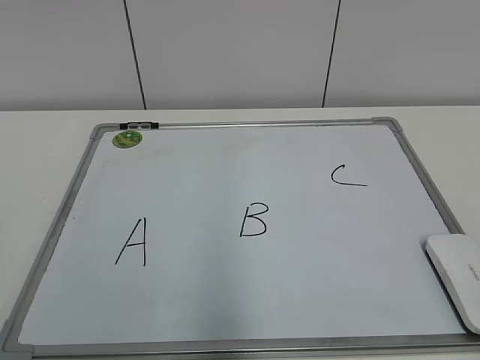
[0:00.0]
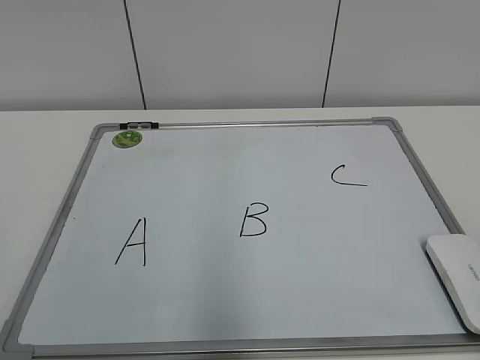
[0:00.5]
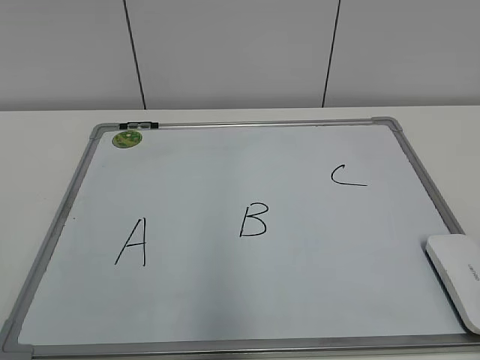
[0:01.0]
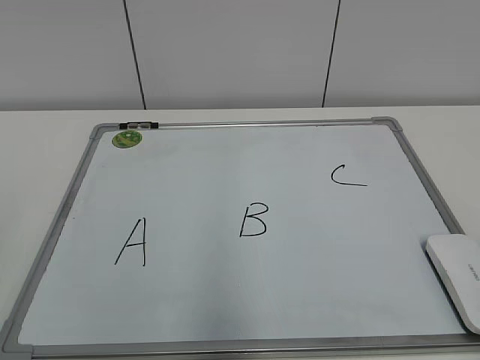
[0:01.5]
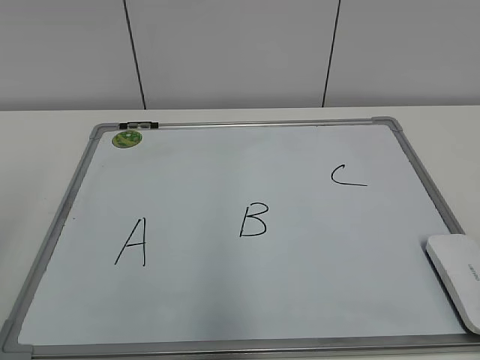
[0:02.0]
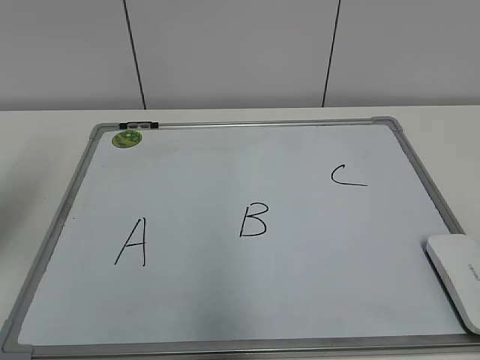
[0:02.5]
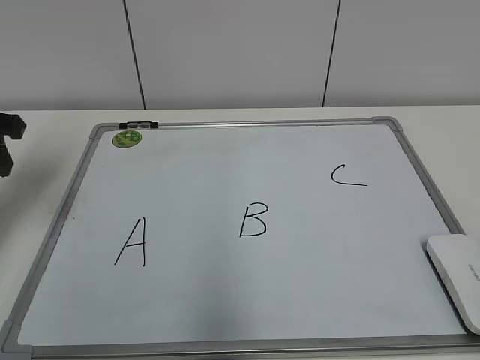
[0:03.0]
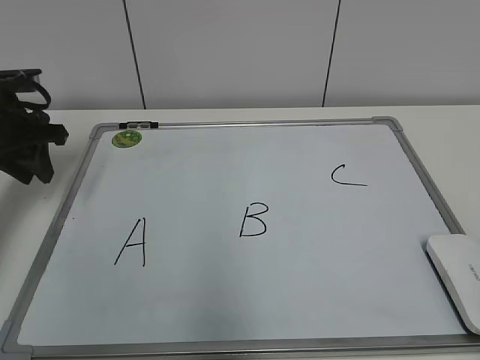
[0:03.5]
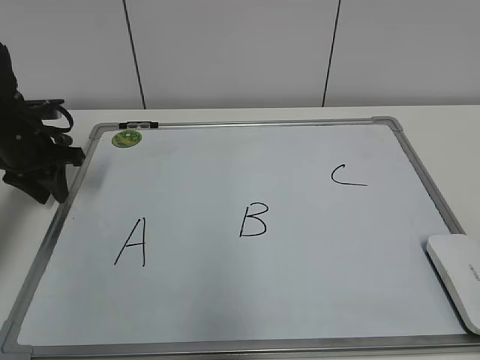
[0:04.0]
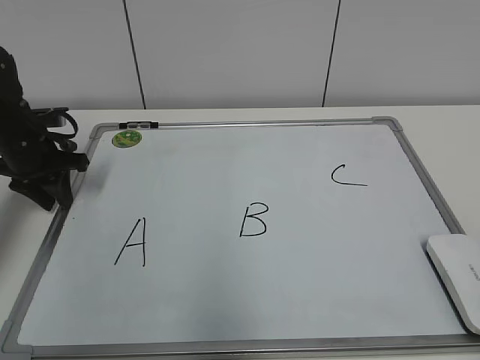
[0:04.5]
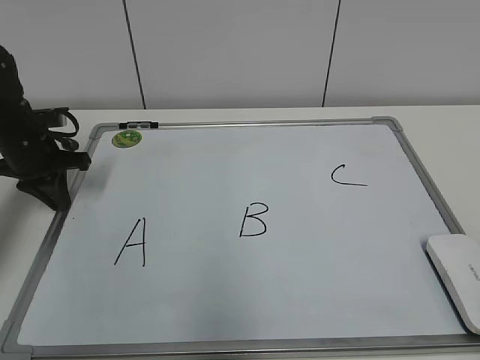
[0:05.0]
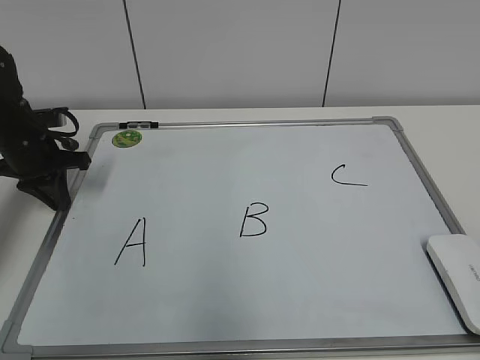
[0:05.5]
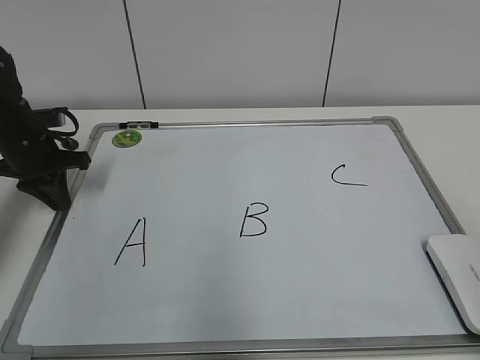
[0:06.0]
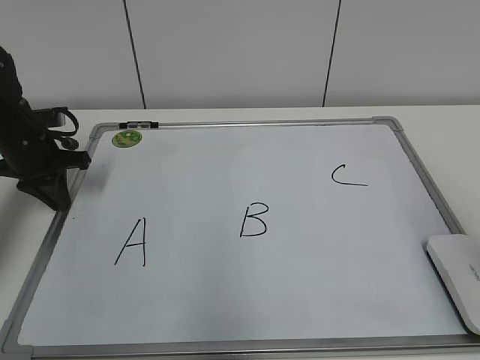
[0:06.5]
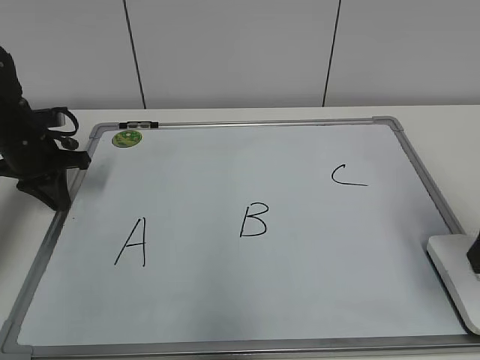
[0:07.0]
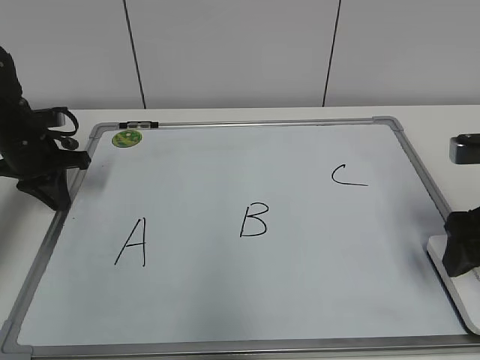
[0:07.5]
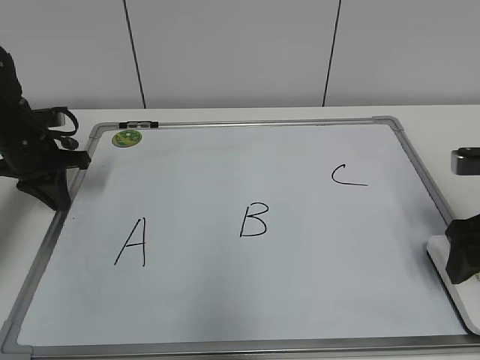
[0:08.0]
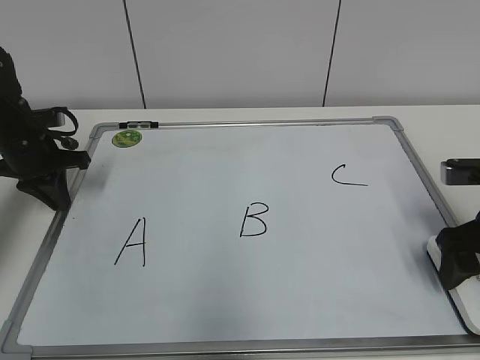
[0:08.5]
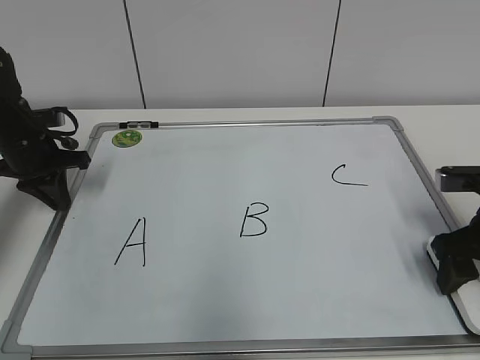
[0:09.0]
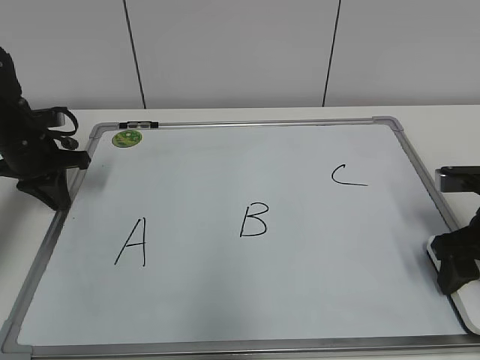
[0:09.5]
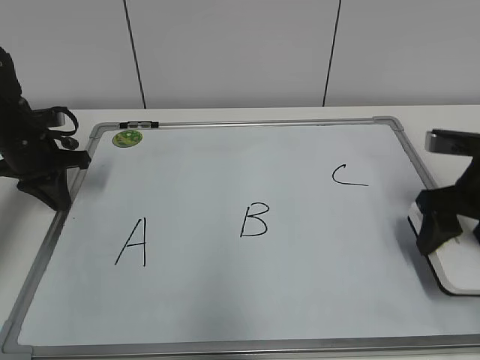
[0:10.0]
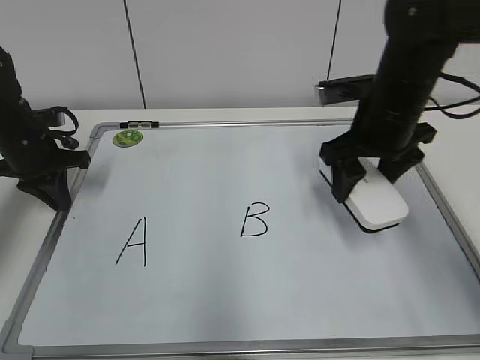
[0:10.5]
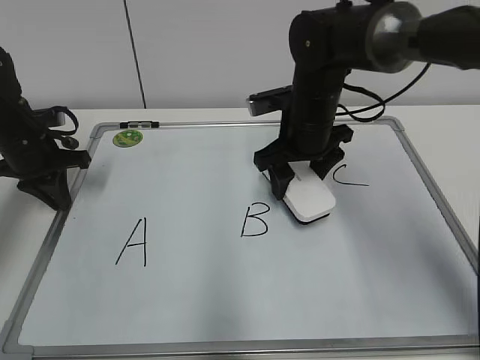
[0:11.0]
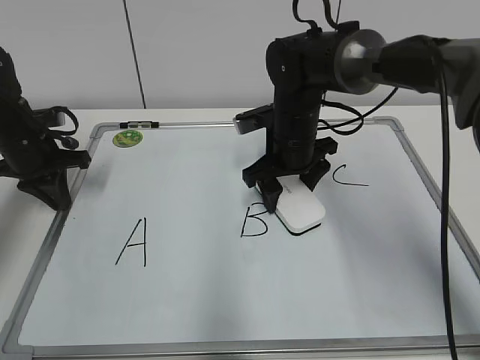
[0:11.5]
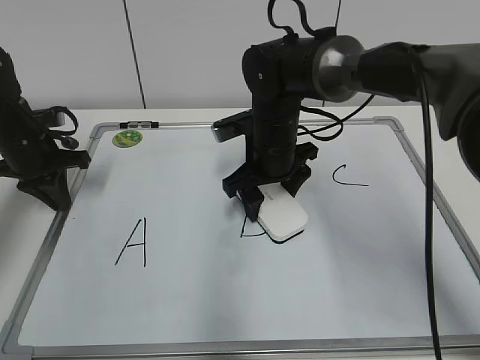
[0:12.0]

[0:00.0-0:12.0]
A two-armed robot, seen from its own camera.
Task of the whole recording: pick up the eraser on the blackboard and erase the letter "B".
Step, 0:00.0 to 0:04.5: Hold the drawing board steady with your left hand.
Step, 0:05.0 to 0:09.5: Grab the eraser with your right hand.
0:02.0 to 0:04.0: The left gripper is displaced forward and downward by some 35 cm.
0:04.0 to 0:06.0: The left gripper closes its fingers.
0:06.0 to 0:08.0: The right gripper heads forward and downward, covering about 25 cm, and opens up.
0:08.0 to 0:10.0: The right gripper closes up.
0:10.0 to 0:12.0: The right gripper moves to the left and forward, roughly 25 cm.

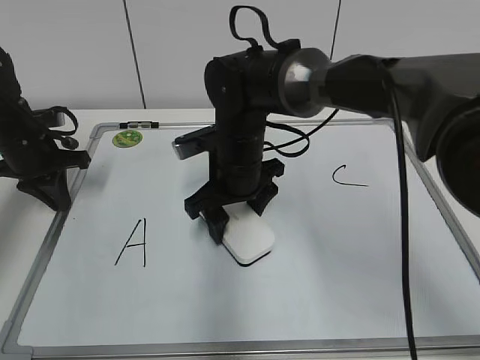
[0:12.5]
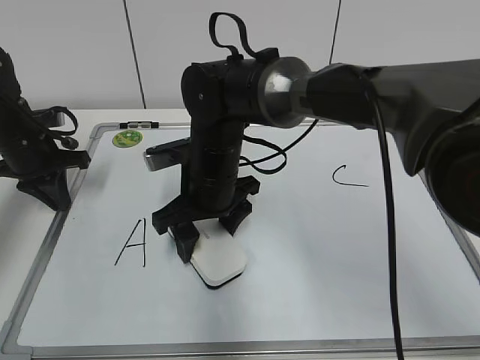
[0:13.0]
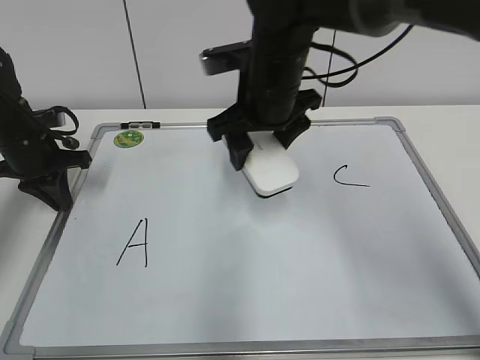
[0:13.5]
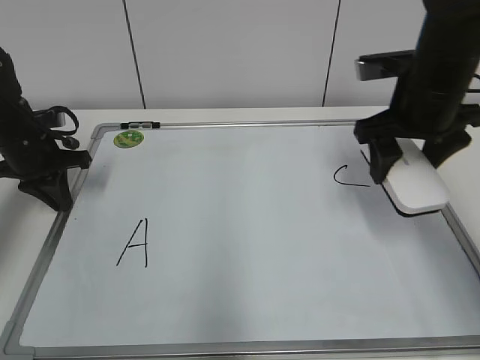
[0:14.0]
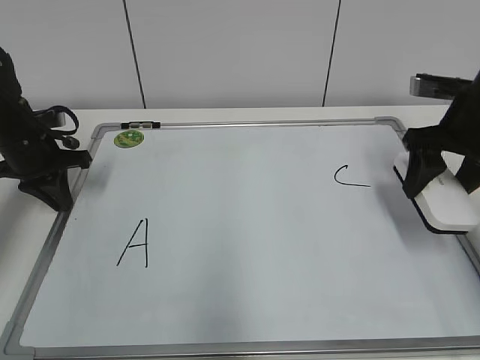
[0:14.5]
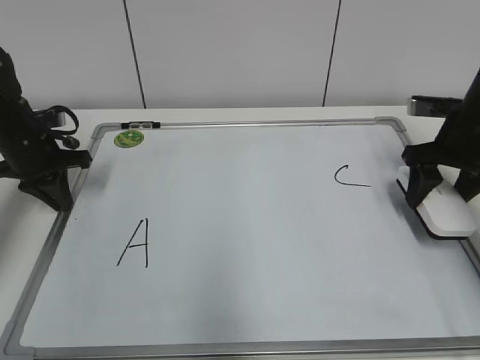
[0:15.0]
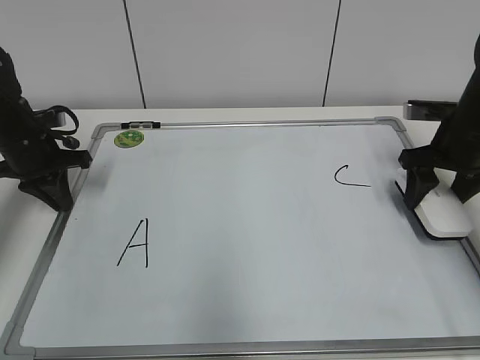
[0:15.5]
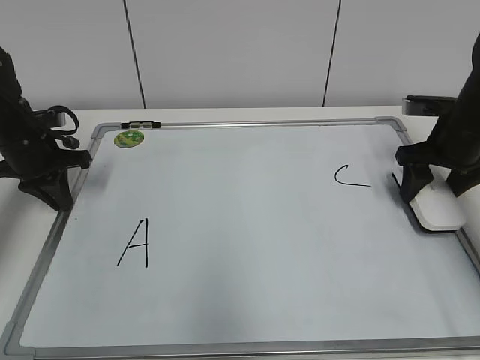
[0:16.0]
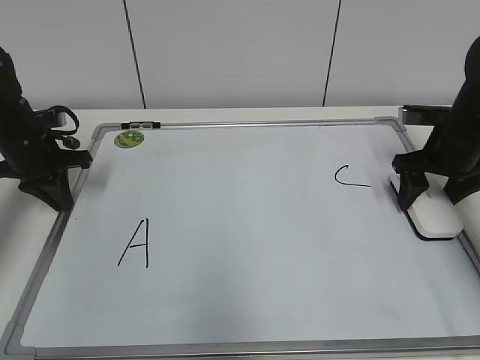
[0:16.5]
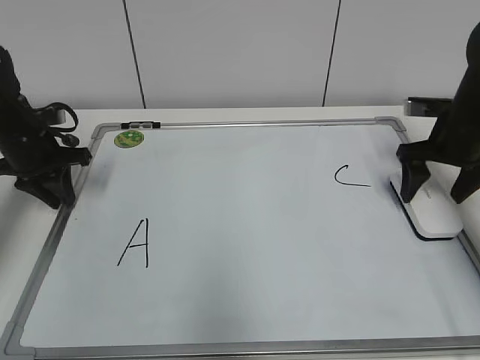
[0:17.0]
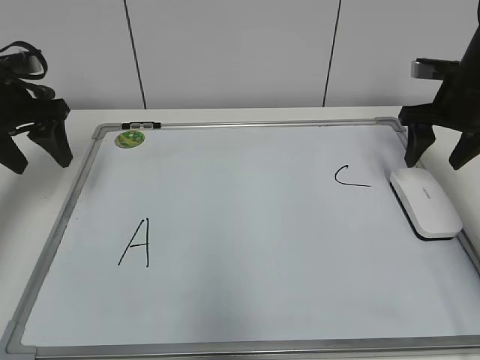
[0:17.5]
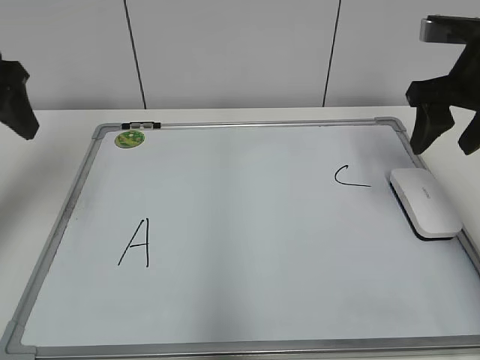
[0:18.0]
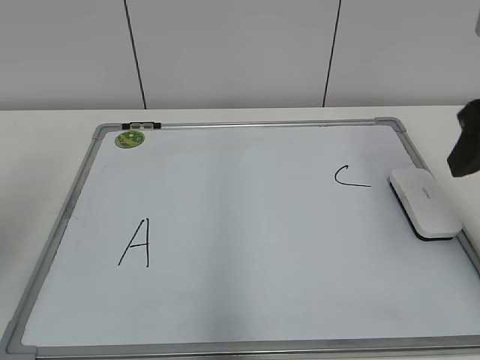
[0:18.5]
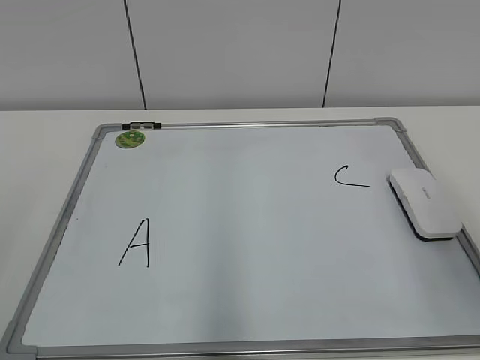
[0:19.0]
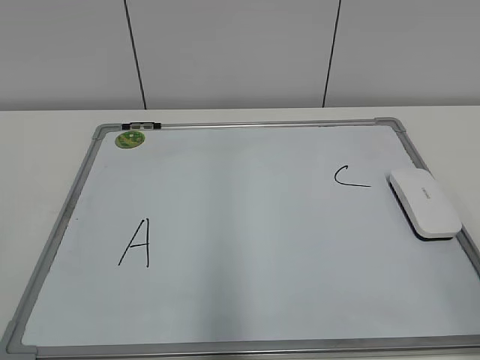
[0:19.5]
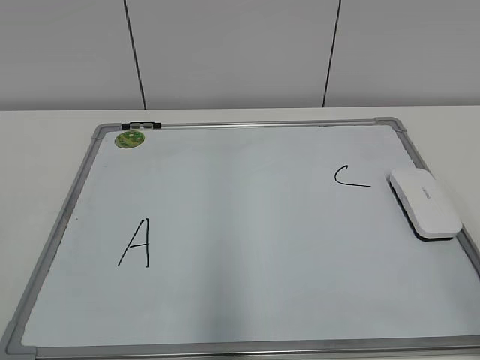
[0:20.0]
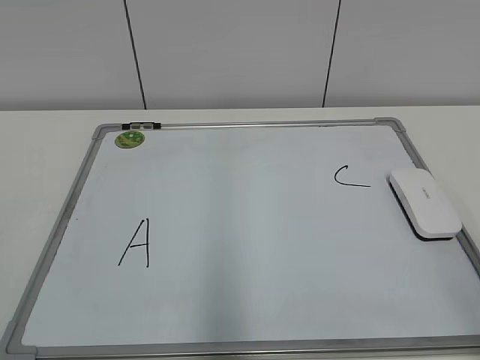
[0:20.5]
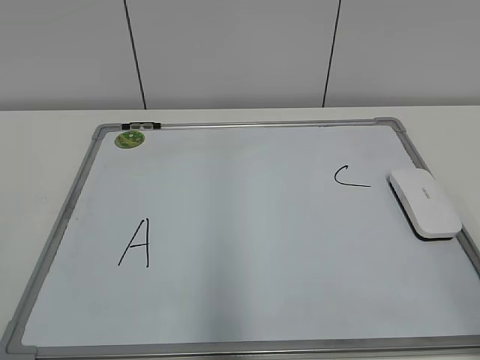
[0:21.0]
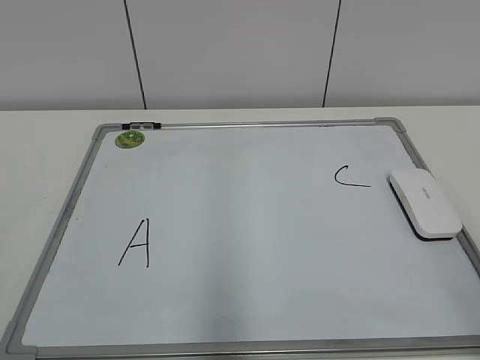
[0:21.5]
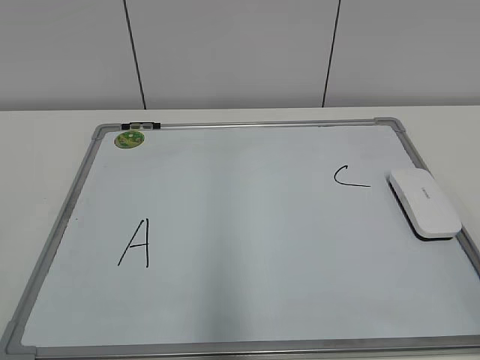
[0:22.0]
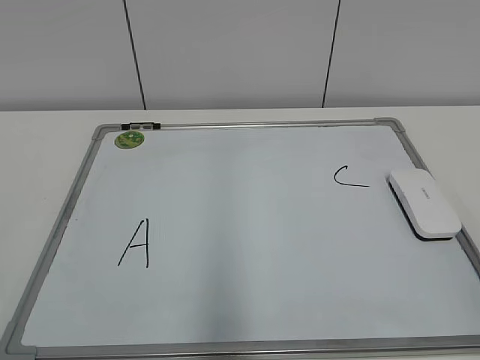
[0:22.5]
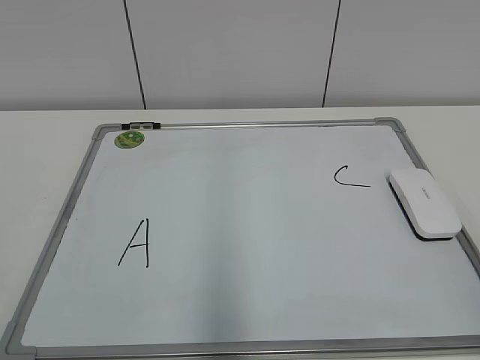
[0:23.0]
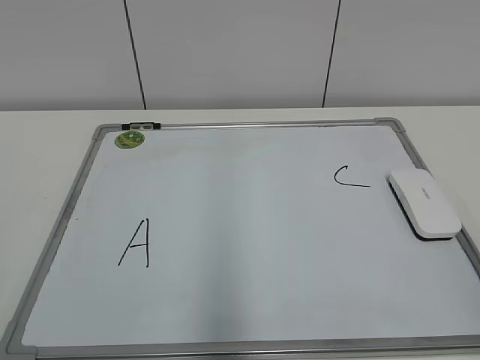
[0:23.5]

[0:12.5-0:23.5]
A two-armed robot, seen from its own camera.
Task of the whole recording: pick up the eraser on the blackboard and erase the letter "B".
0:12.5 to 0:14.5: The right gripper is displaced to the right by approximately 25 cm.
0:14.5 to 0:16.0: The right gripper travels downward by approximately 5 cm.
0:16.0 to 0:18.0: The left gripper heads upward and backward, covering roughly 20 cm, and opens up, while the right gripper heads upward and backward, covering some 15 cm, and opens, then closes once more.
0:18.0 to 0:20.0: The two grippers go roughly 30 cm backward.
0:20.0 to 0:21.5: The two grippers keep their place.

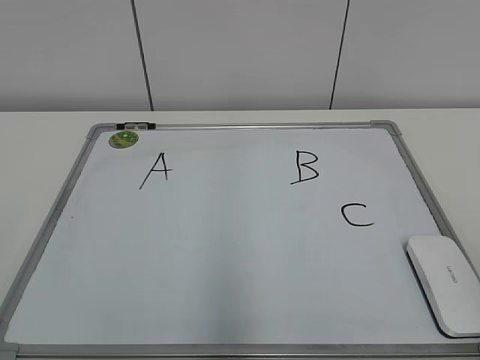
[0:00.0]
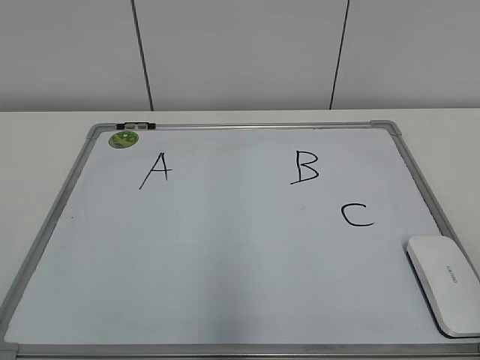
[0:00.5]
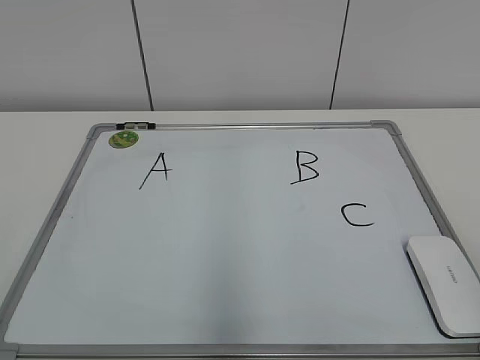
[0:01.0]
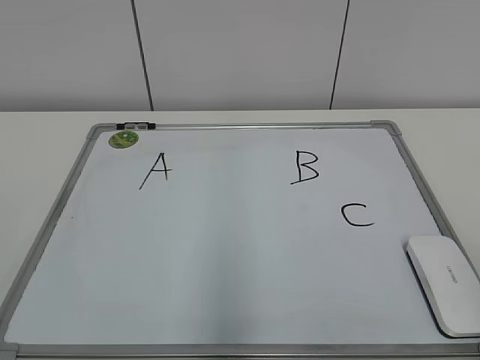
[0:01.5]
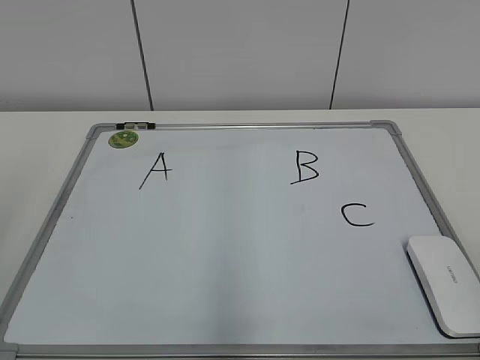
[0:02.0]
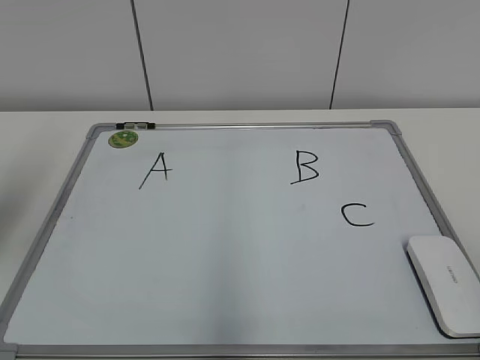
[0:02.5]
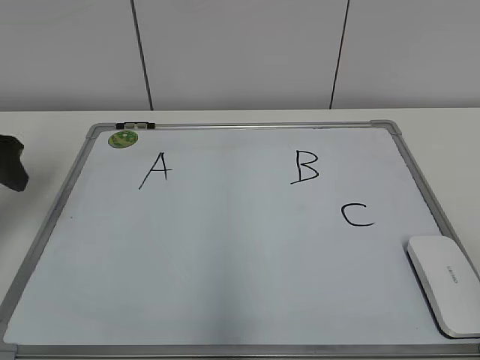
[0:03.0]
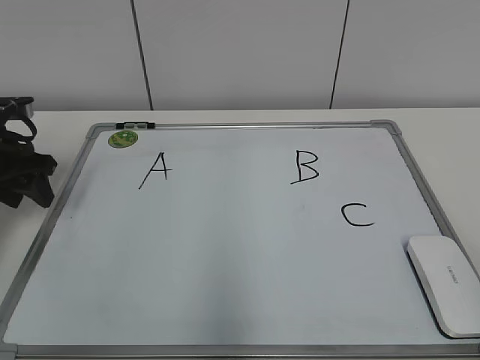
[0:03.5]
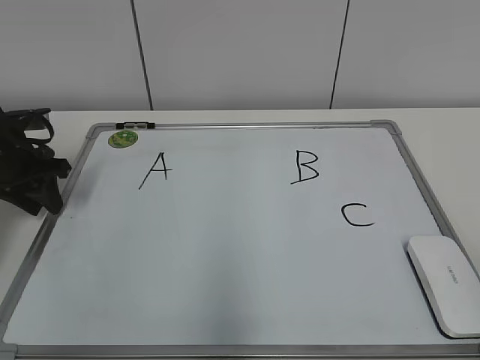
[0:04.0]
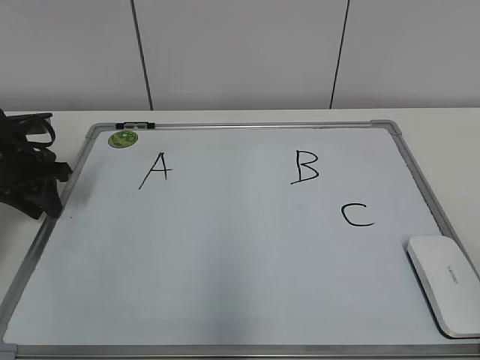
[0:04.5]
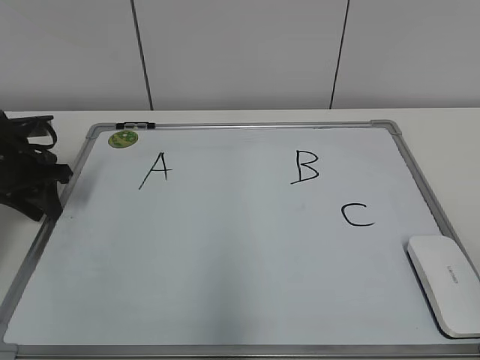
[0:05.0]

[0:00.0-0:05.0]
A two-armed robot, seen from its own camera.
Task of the whole recording: pick up the eraser on the blackboard and erase the letter "B".
0:02.5 to 0:05.0: The left gripper goes roughly 25 cm forward and downward, and closes up.
